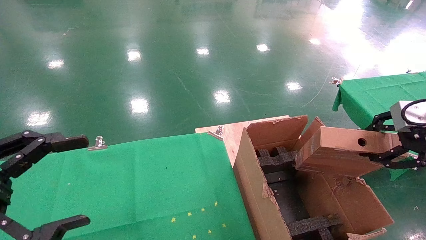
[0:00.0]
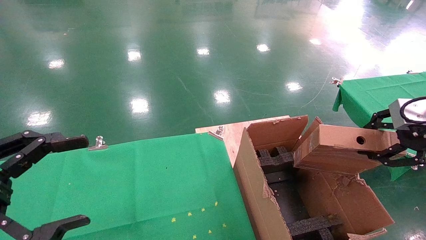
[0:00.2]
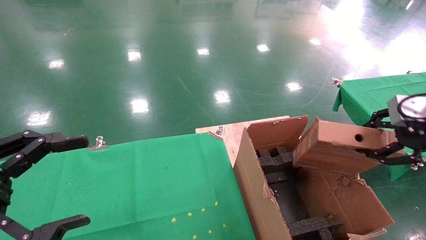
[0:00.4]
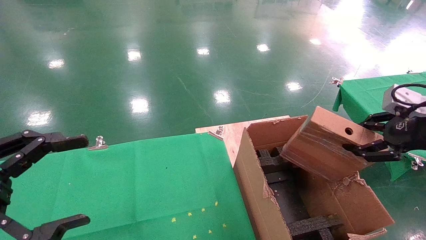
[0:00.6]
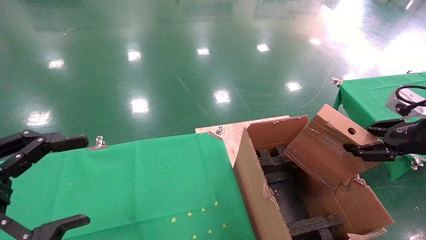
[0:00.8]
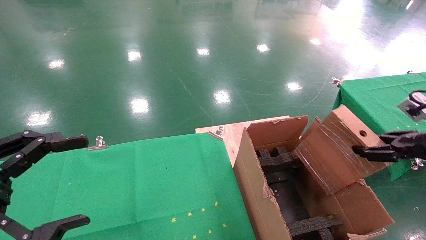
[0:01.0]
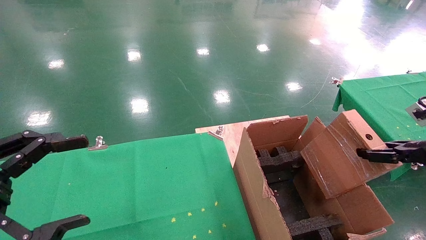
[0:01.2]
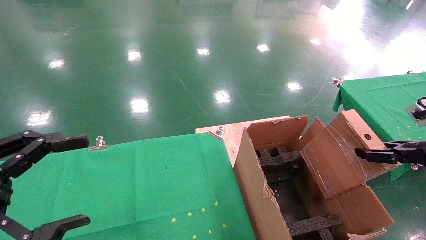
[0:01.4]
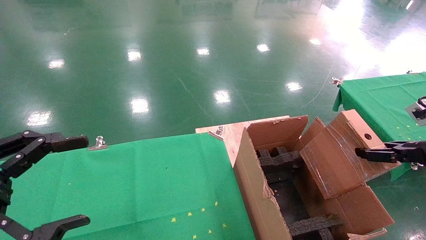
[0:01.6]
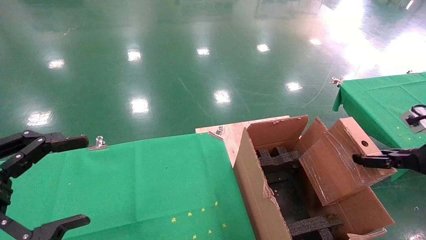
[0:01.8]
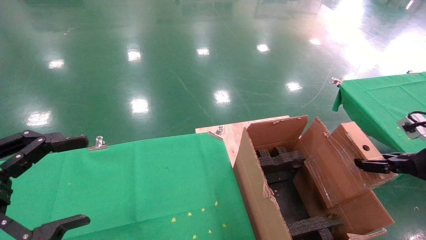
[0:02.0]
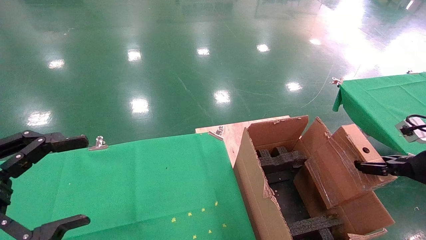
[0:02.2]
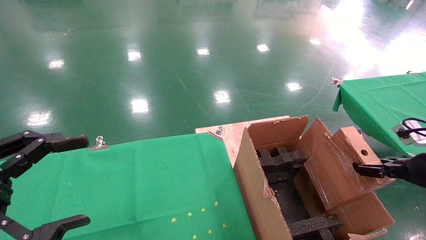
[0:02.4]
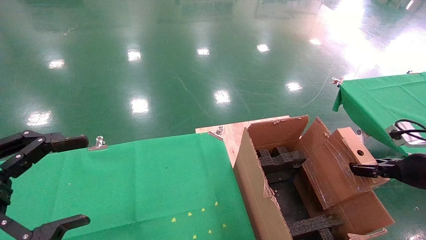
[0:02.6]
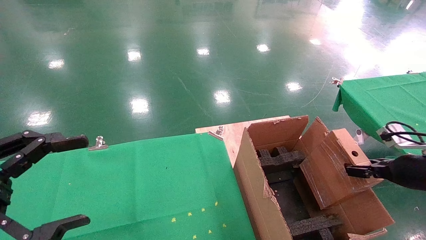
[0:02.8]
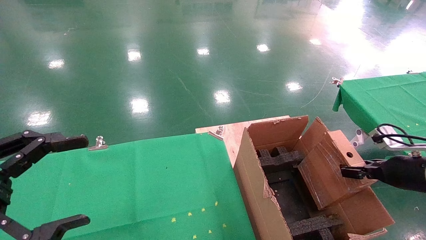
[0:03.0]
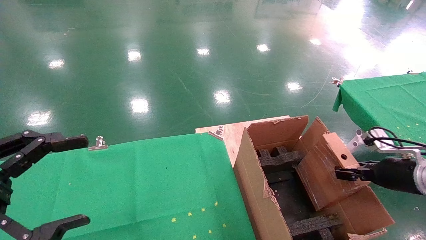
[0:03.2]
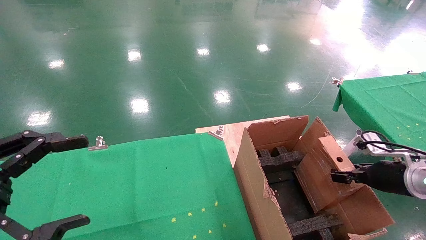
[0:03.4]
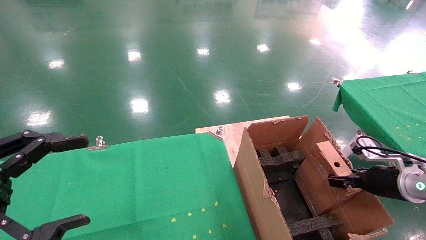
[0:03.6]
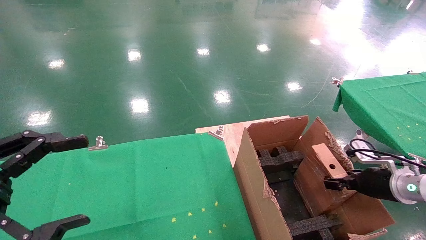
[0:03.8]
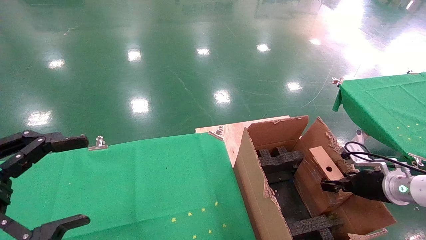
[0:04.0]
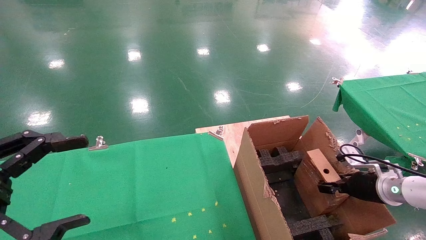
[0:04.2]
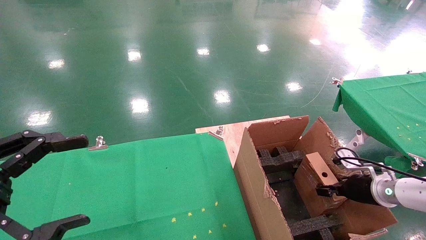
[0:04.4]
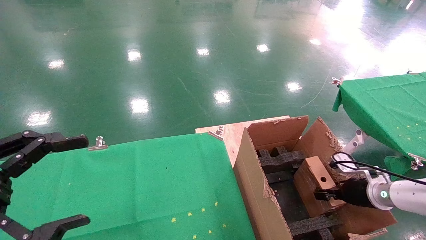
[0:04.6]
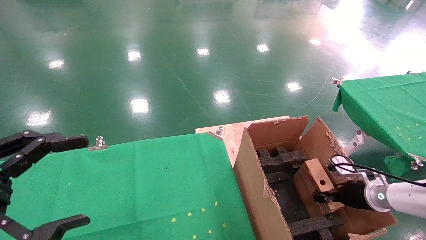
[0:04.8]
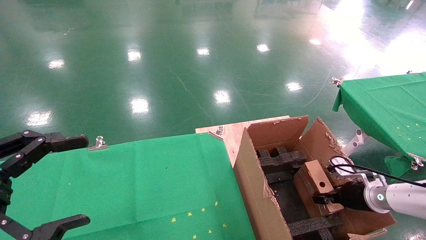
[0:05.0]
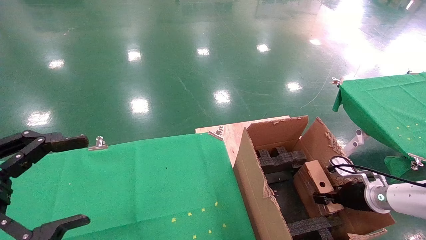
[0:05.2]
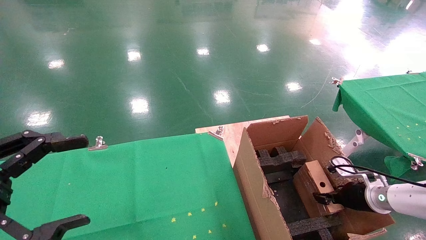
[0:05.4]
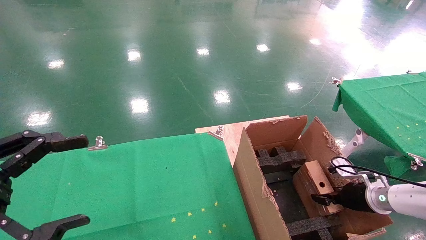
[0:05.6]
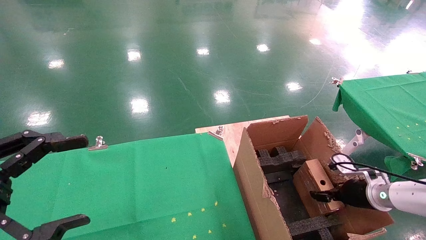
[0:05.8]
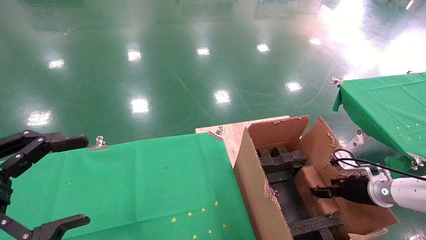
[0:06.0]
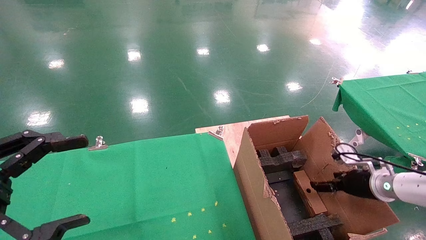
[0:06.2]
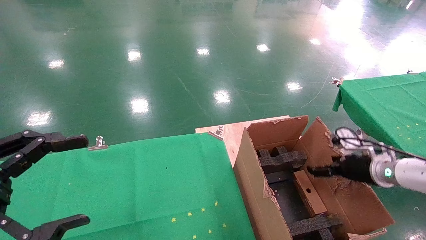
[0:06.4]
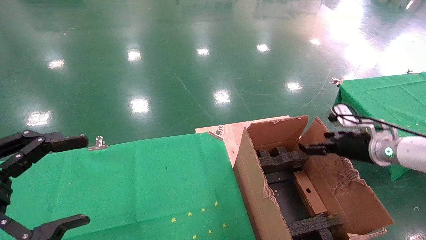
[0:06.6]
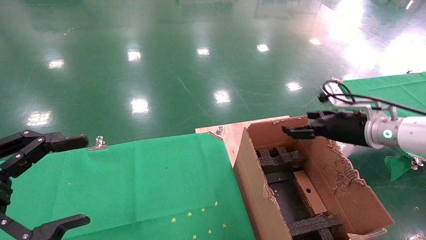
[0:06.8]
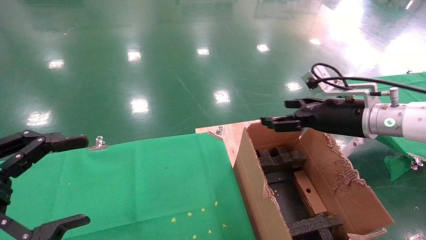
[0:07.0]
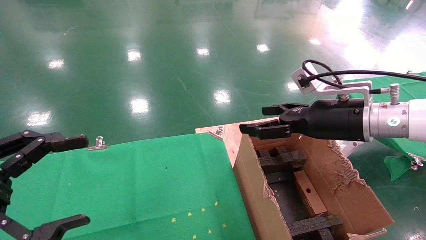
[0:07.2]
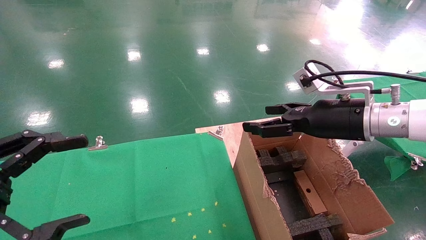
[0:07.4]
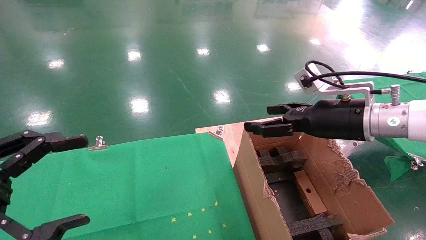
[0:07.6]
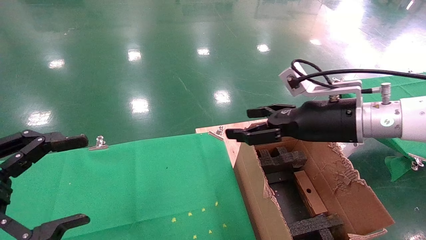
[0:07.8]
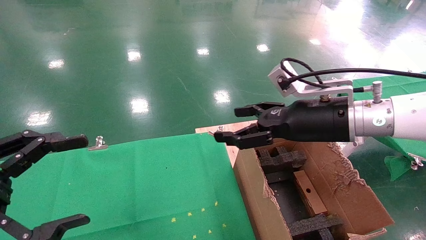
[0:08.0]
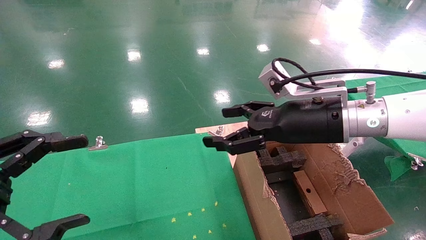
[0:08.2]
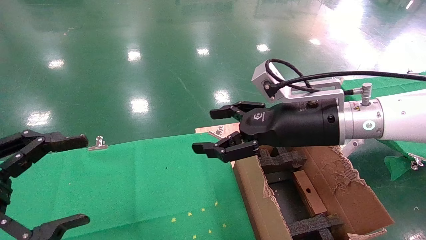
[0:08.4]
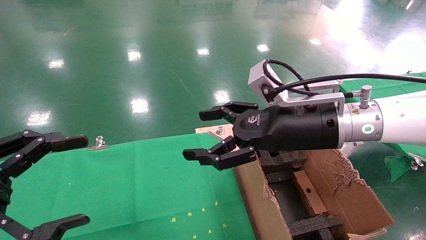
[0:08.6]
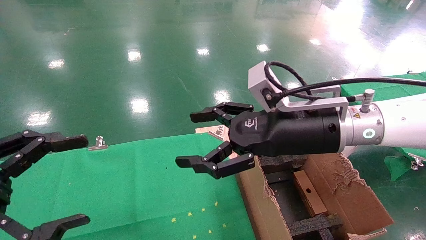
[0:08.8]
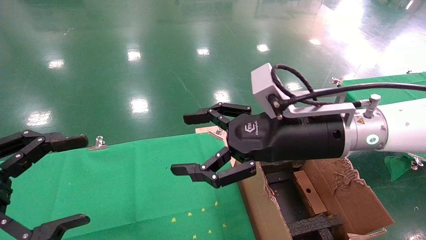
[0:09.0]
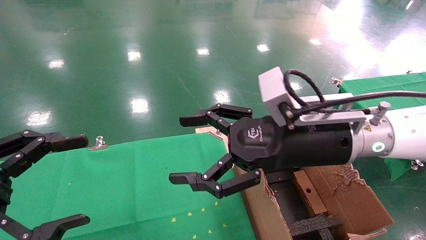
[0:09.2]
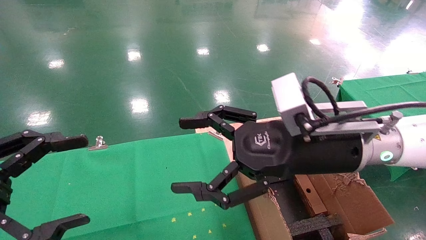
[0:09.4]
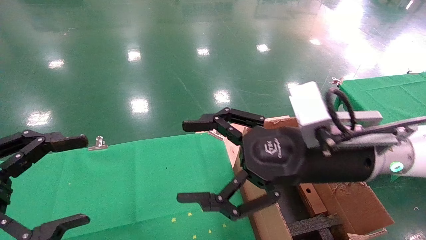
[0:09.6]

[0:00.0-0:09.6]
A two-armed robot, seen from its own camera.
Task of the whole recording: using a robotic arm to pick up a cardboard box and palace it the carton.
Step, 0:00.0 to 0:05.8: Place the mouse and the power cord paper box into the container.
0:00.0 to 0:01.6: The right gripper heads downward and to the right, covering roughly 10 cm.
0:01.6 to 0:03.2: The right gripper shifts approximately 10 cm downward and forward.
0:03.2 to 0:04.8: The right gripper travels downward and forward by some 10 cm.
0:04.8 to 0:06.4: The right gripper shifts roughly 10 cm upward, and opens.
0:06.4 to 0:08.0: The right gripper goes approximately 25 cm to the left and upward.
0:08.0 to 0:09.6: The right gripper is displaced backward and to the left by some 10 cm.
